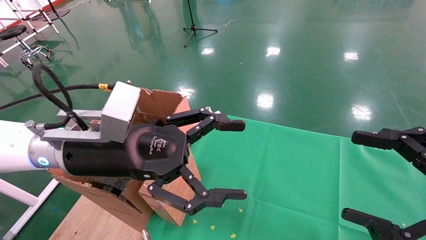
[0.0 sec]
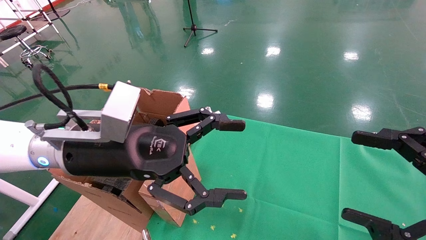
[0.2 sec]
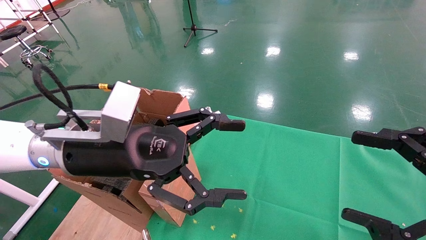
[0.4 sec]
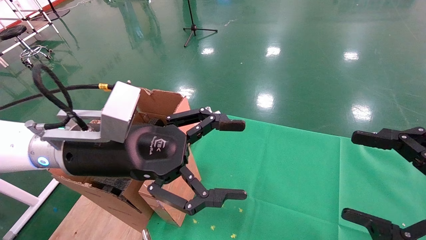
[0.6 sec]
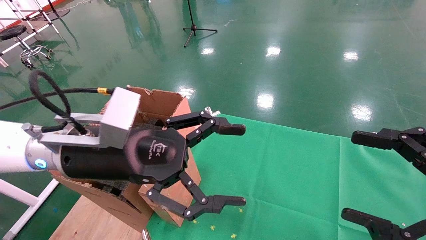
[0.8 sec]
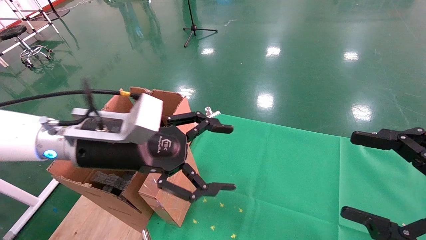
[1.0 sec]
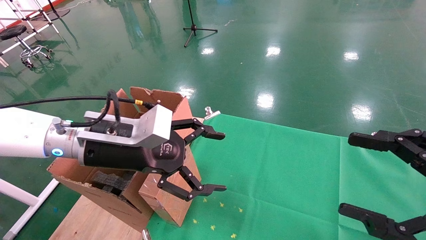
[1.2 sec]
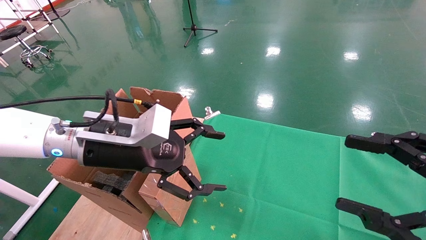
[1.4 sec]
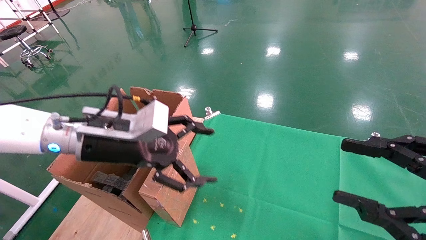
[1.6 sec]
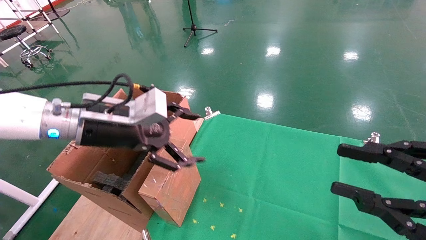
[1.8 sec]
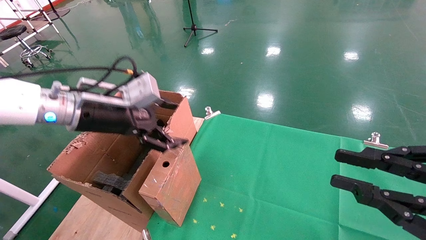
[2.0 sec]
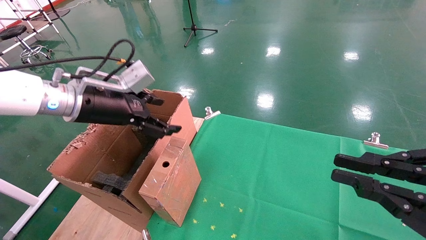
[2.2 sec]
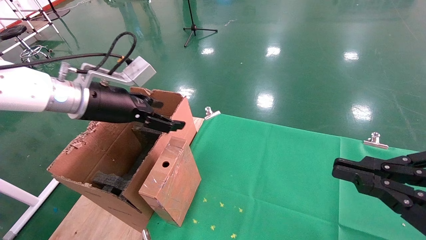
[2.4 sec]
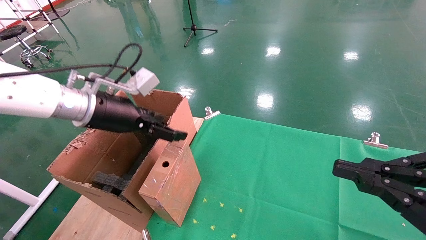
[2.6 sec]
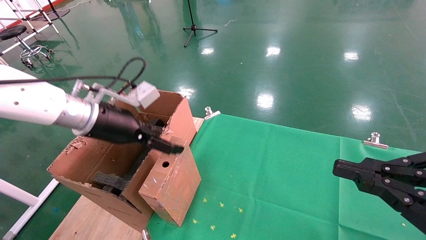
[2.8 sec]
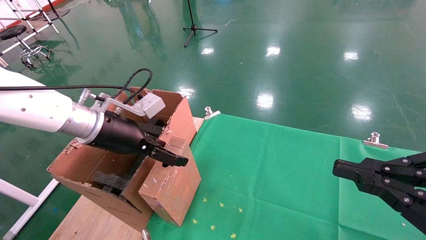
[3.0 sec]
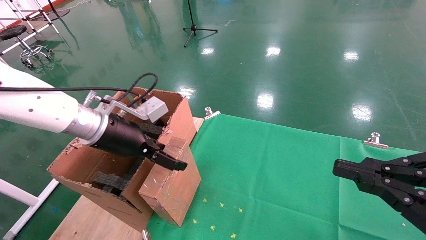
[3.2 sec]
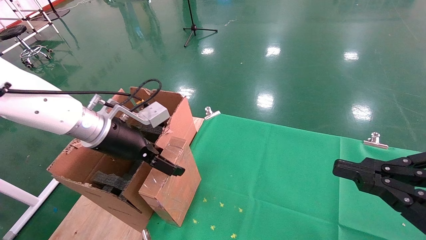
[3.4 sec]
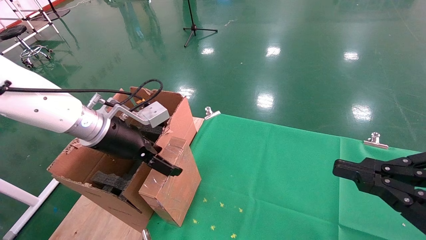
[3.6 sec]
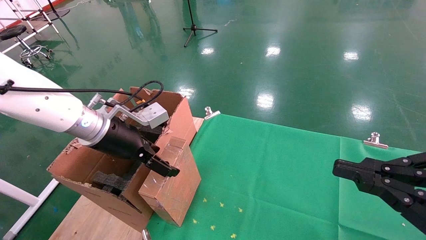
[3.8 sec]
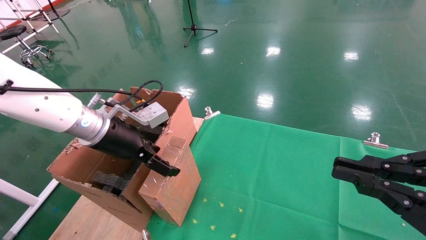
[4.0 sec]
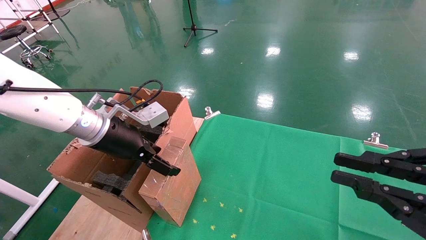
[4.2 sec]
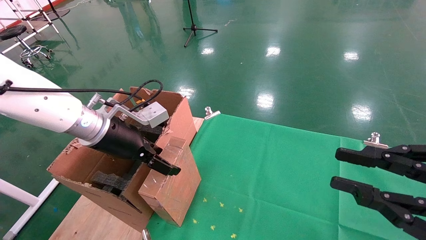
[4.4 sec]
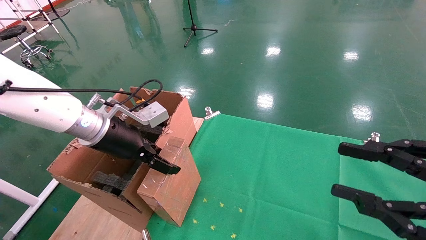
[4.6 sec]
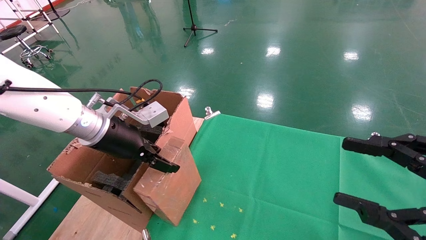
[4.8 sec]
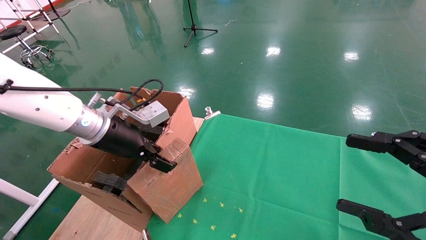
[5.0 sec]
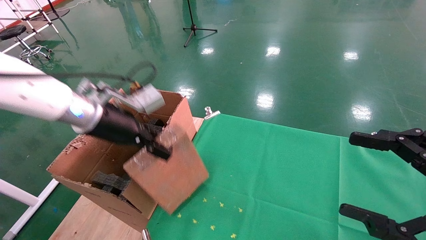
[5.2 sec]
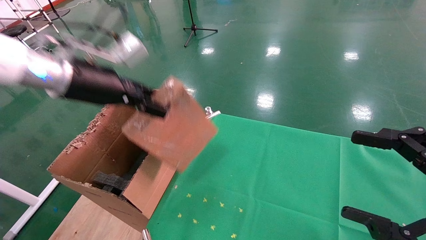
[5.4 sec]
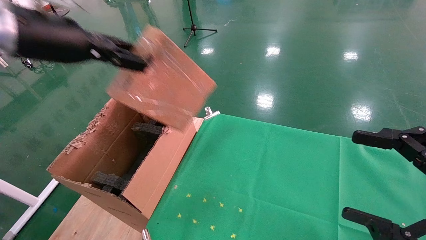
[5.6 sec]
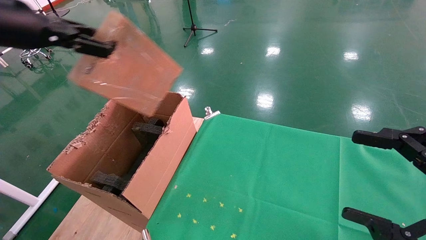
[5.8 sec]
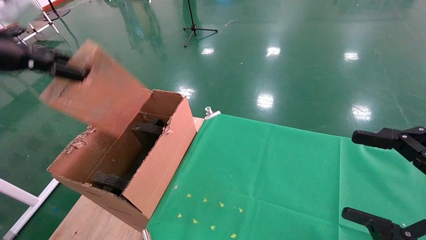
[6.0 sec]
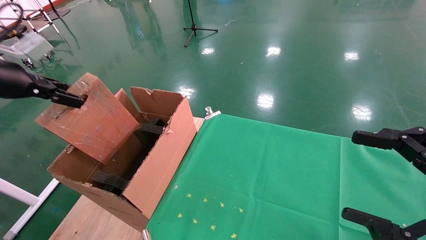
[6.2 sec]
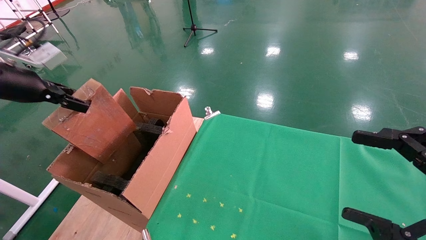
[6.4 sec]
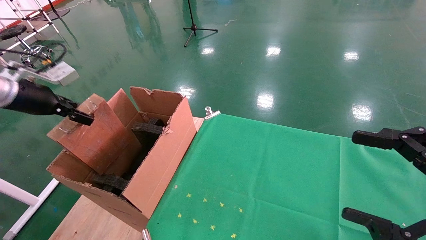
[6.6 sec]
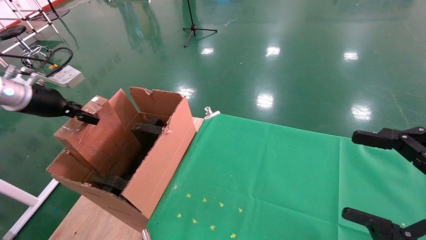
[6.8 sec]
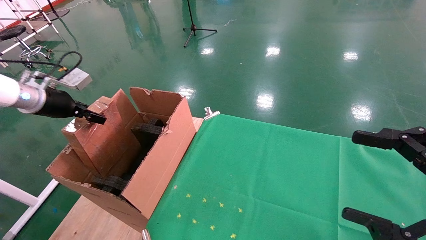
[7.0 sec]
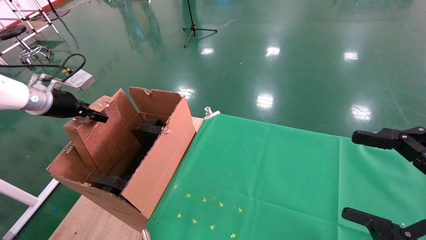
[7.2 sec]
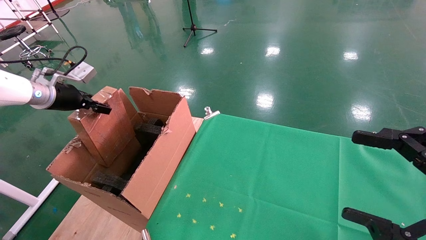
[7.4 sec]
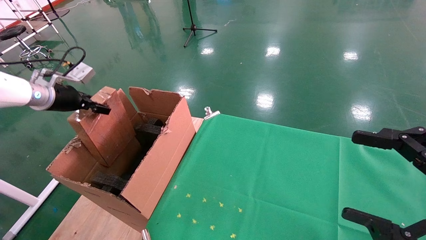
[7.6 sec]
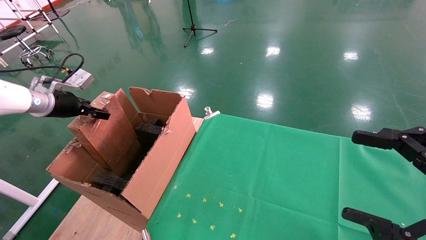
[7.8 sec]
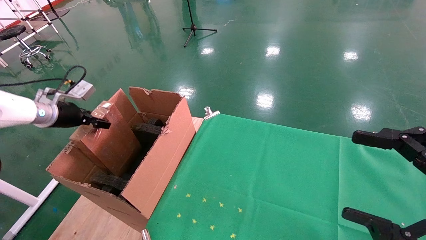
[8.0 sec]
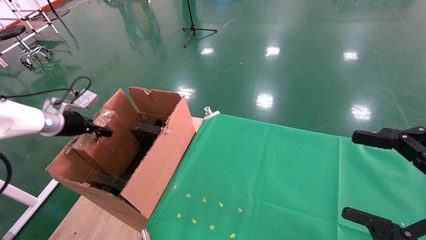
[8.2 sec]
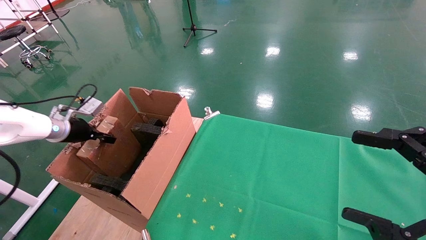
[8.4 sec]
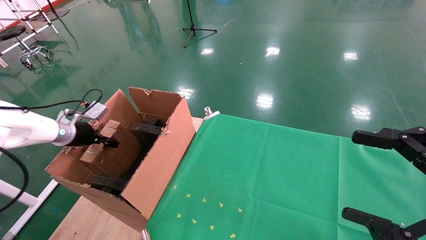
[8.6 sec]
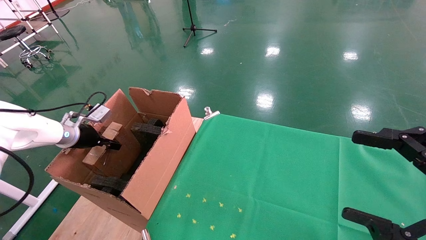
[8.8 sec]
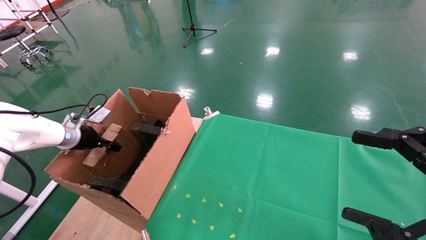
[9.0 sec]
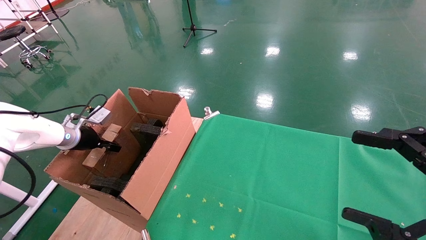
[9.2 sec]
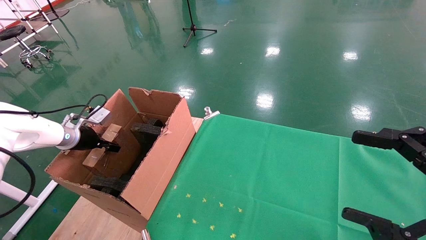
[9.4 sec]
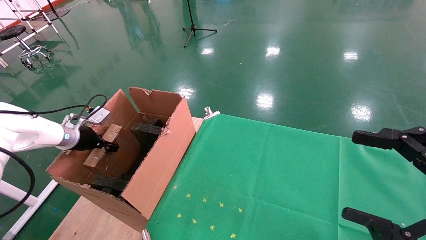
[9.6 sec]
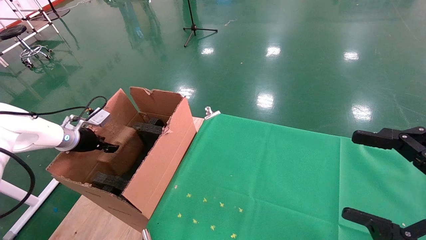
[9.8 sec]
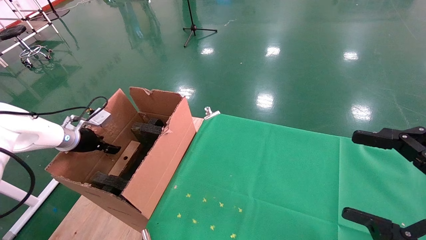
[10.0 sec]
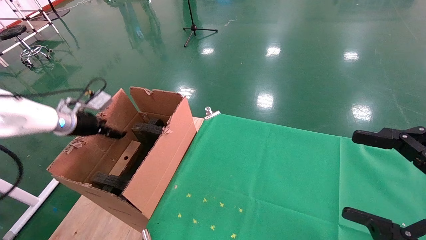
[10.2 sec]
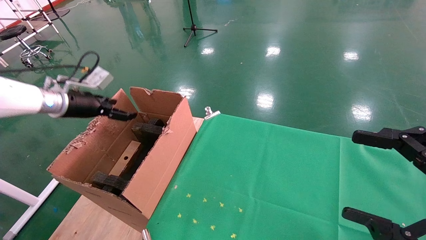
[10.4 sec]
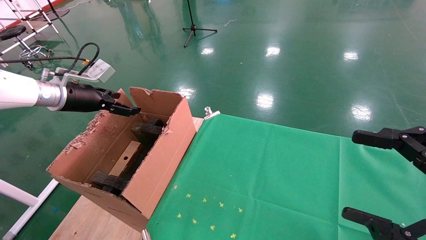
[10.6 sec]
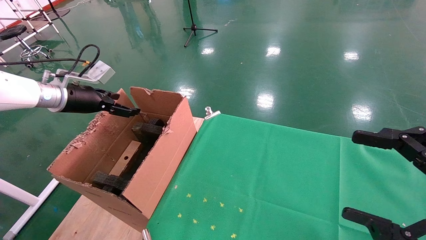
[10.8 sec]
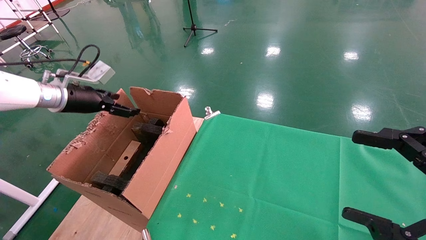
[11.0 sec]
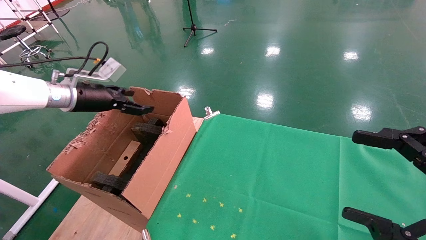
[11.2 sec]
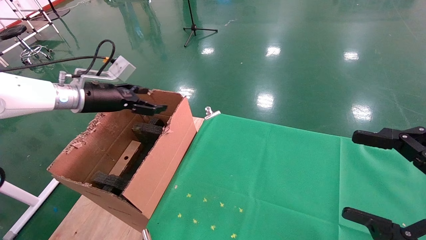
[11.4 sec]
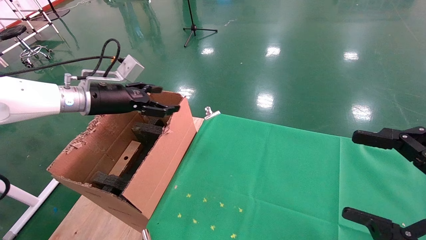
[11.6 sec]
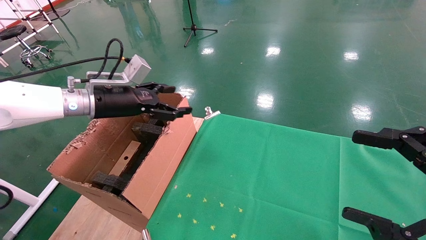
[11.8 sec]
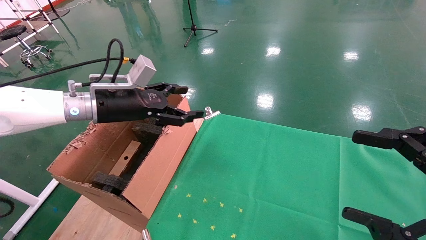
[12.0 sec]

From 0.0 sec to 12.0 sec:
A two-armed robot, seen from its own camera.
Task of the whole recording: using a robotic arm to pick up a cardboard box and palace it the carton.
Step, from 1.0 sec to 5.0 sec: Pick up the mouse and the power cord paper box.
Step, from 5.2 sec to 10.4 sec: Place the mouse and the power cord paper box into the container.
From 0.0 sec to 1.6 sec: The left gripper changes place by roughly 5 cm.
From 1.6 sec to 3.0 sec: The right gripper closes. The left gripper shifts by roughly 5 cm.
From 3.0 sec to 4.4 sec: The grippers stay close to where they were, moving slightly.
From 4.4 sec to 6.0 sec: The right gripper opens, while the left gripper moves to the left and upward, some 25 cm, and closes up.
From 6.0 sec to 7.6 sec: The left gripper shifts roughly 20 cm forward, downward and to the left.
From 7.6 sec to 9.0 sec: The left gripper goes some 10 cm downward.
From 9.0 sec to 10.4 sec: The left gripper moves upward, roughly 10 cm, and opens its fingers.
From 10.4 sec to 12.0 sec: The left gripper moves to the right, approximately 15 cm.

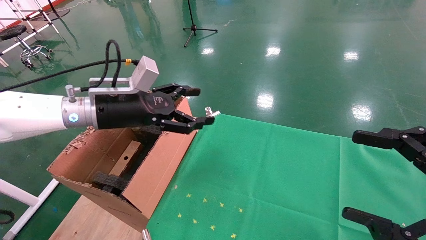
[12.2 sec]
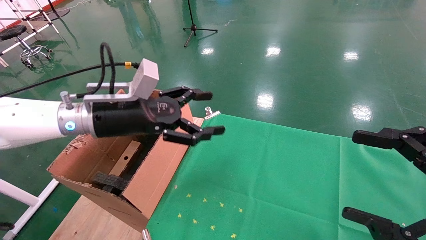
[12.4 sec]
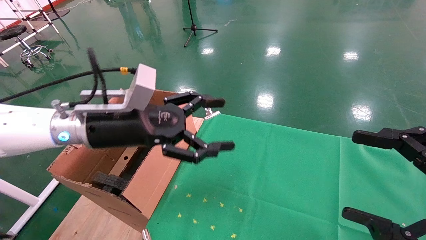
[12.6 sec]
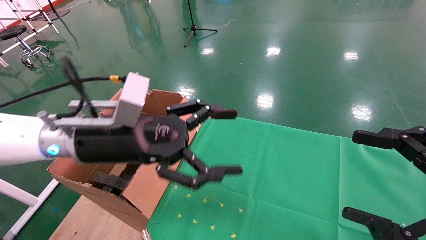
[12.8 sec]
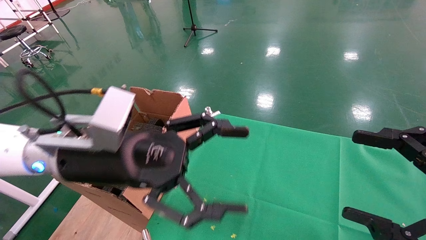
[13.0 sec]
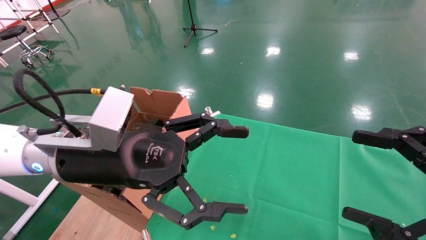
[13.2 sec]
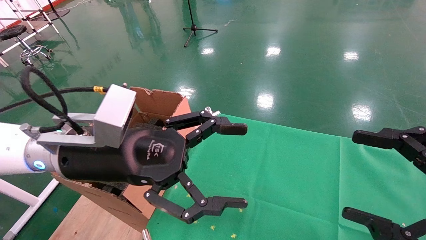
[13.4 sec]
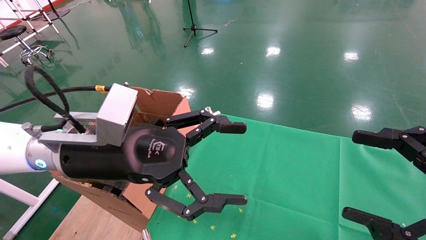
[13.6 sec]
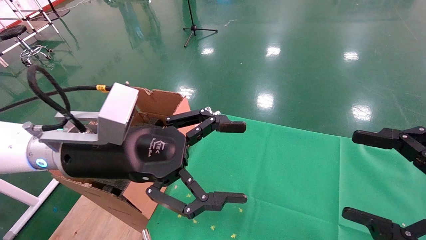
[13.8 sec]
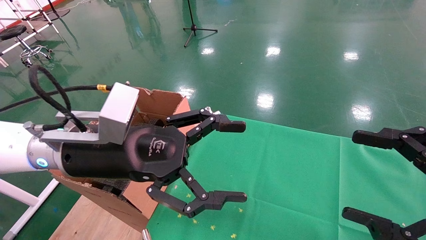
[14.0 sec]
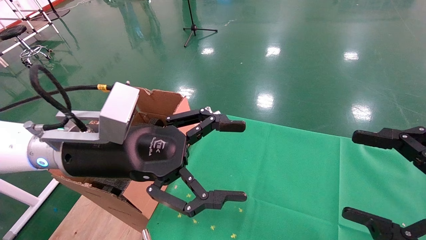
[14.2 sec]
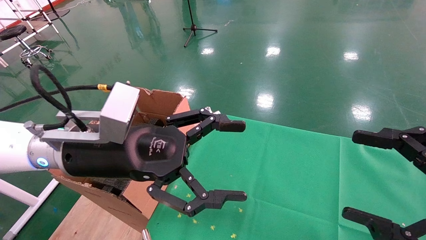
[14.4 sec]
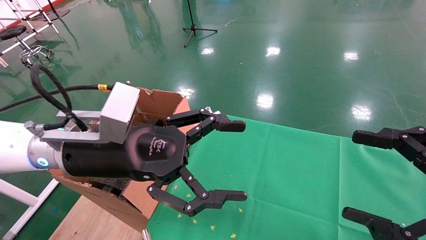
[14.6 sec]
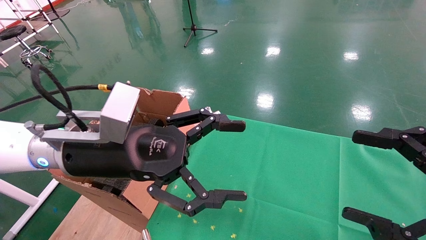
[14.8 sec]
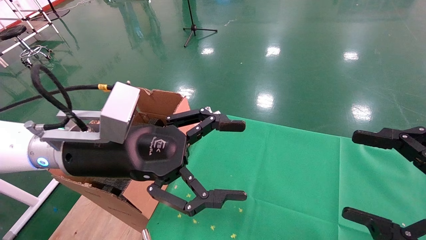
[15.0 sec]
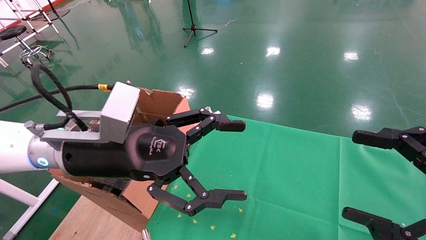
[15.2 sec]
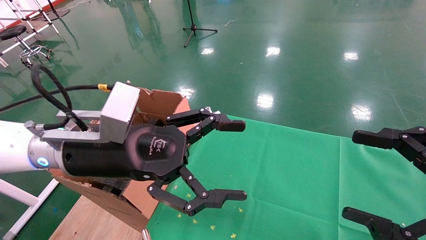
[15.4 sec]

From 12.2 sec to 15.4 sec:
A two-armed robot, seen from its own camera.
Task of the whole recording: using a robotic arm to pick up a cardboard box and palace it the carton.
From 12.2 sec to 13.8 sec: The left gripper travels backward and to the right by about 15 cm.
From 13.8 sec to 15.4 sec: Neither gripper changes place.
